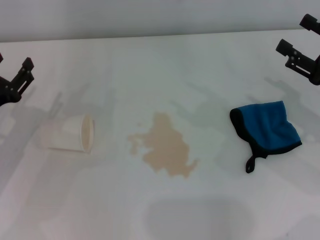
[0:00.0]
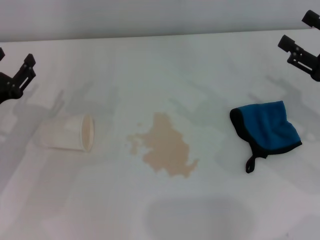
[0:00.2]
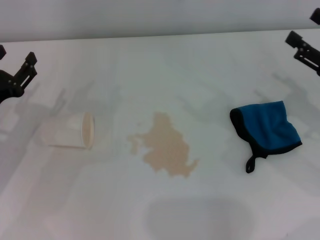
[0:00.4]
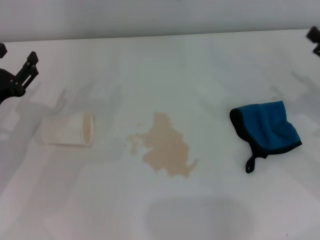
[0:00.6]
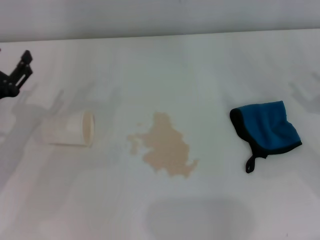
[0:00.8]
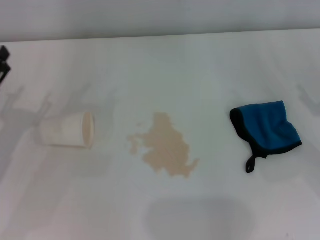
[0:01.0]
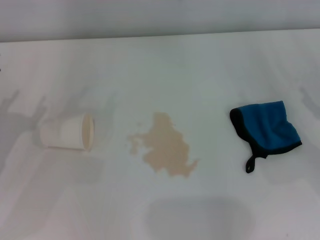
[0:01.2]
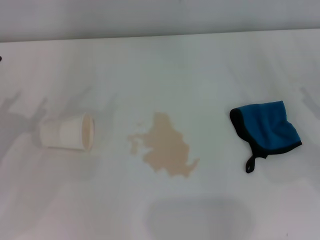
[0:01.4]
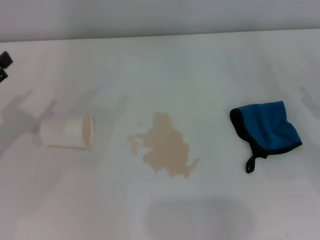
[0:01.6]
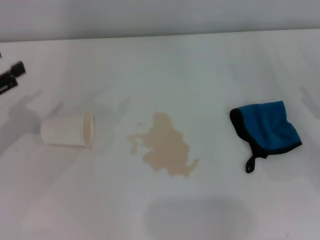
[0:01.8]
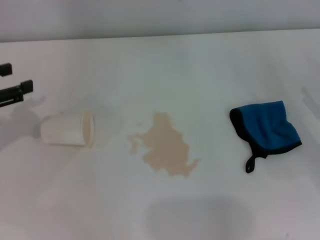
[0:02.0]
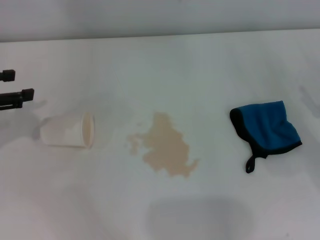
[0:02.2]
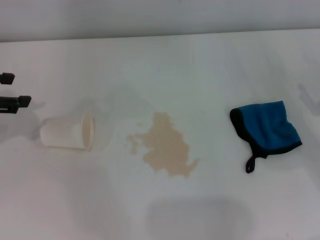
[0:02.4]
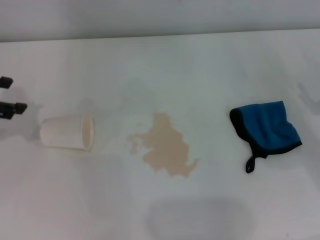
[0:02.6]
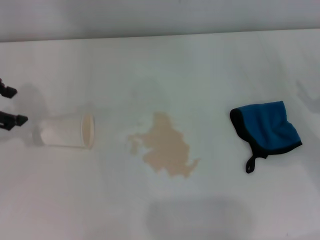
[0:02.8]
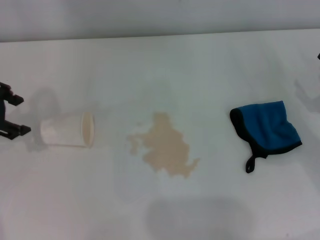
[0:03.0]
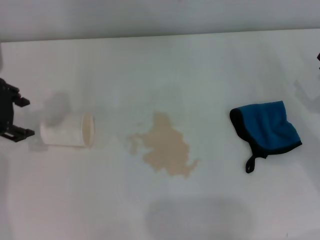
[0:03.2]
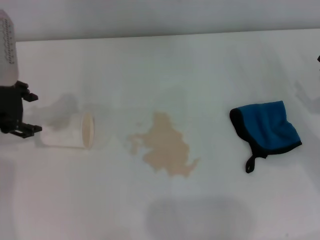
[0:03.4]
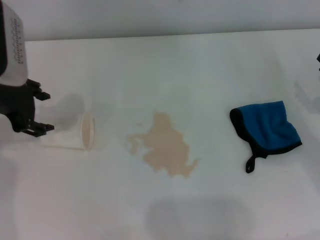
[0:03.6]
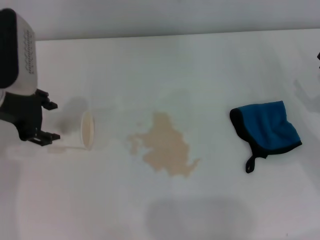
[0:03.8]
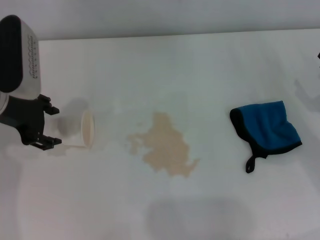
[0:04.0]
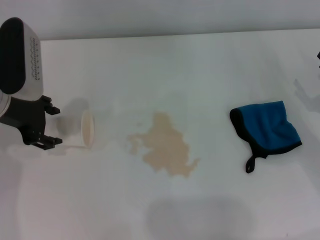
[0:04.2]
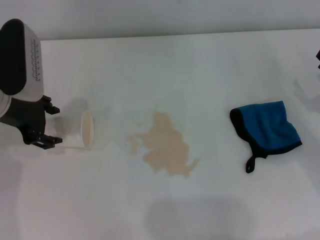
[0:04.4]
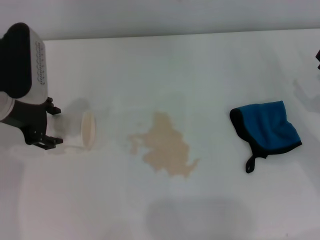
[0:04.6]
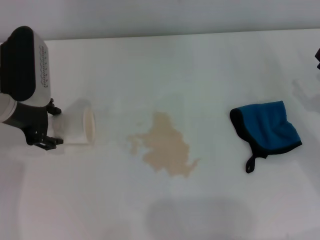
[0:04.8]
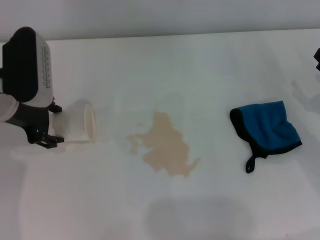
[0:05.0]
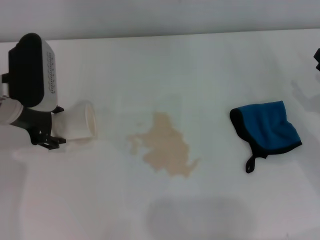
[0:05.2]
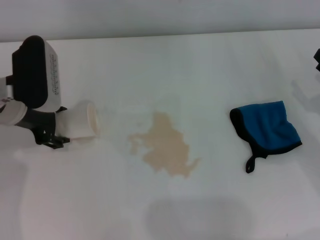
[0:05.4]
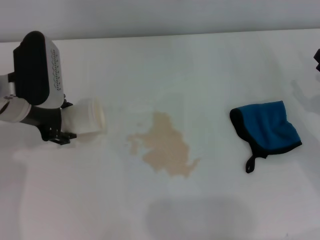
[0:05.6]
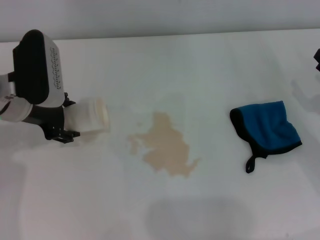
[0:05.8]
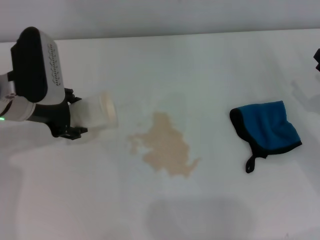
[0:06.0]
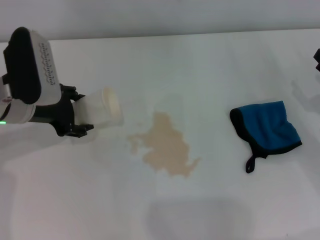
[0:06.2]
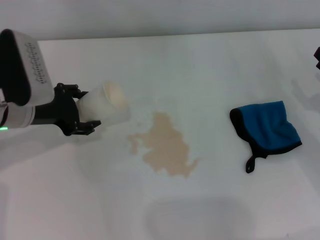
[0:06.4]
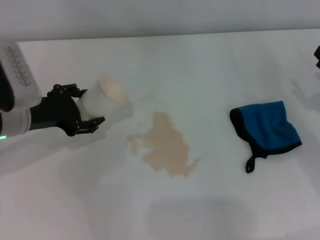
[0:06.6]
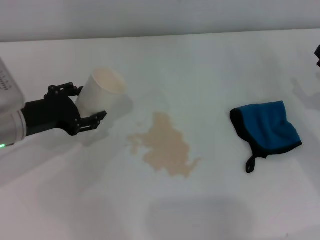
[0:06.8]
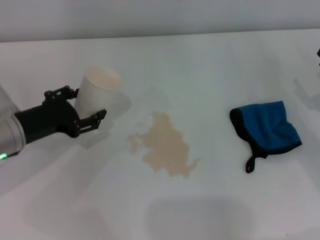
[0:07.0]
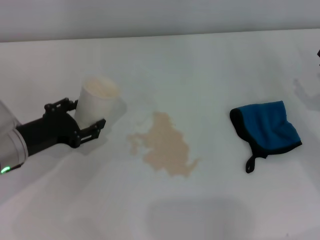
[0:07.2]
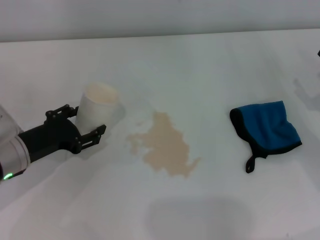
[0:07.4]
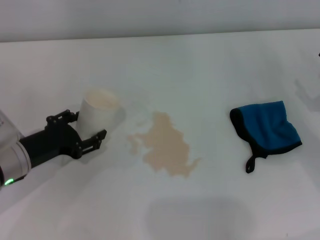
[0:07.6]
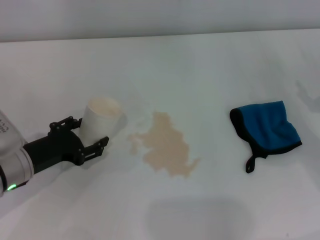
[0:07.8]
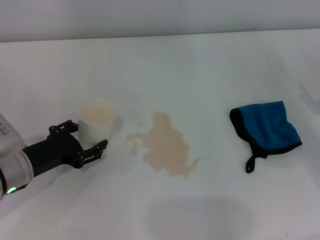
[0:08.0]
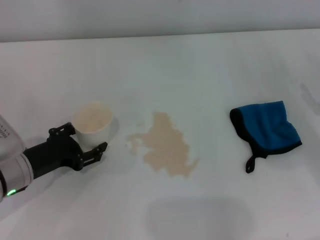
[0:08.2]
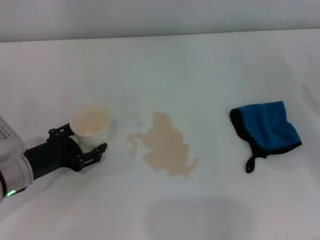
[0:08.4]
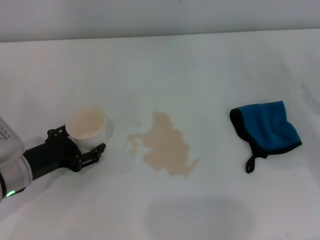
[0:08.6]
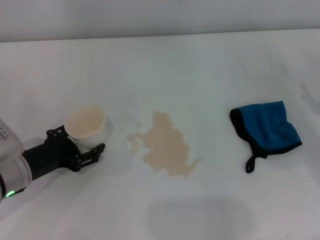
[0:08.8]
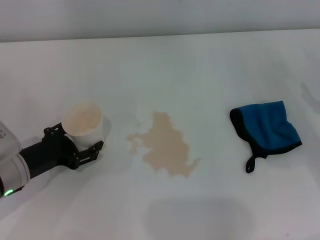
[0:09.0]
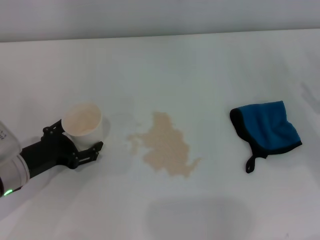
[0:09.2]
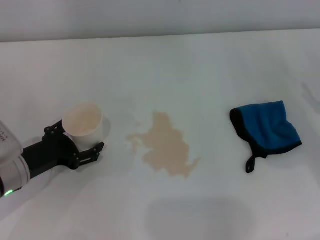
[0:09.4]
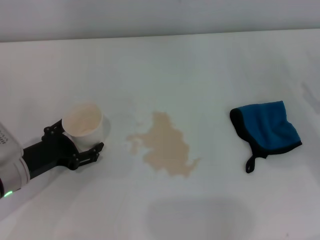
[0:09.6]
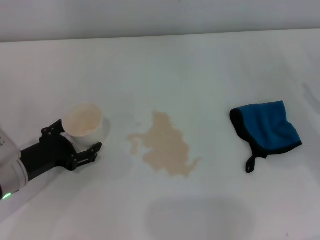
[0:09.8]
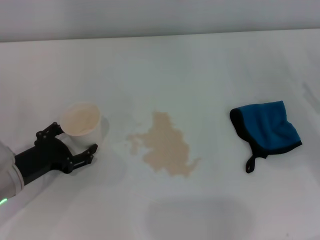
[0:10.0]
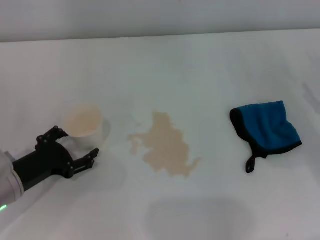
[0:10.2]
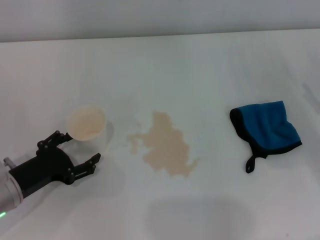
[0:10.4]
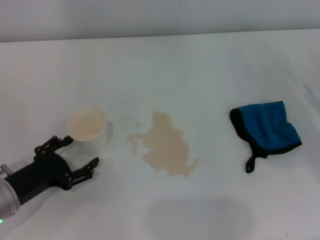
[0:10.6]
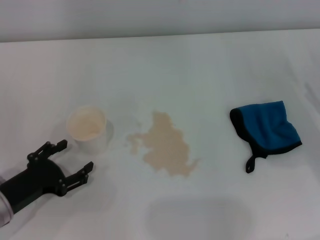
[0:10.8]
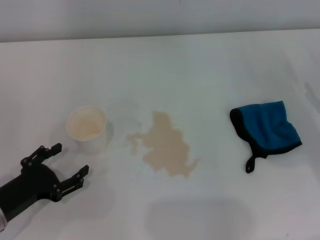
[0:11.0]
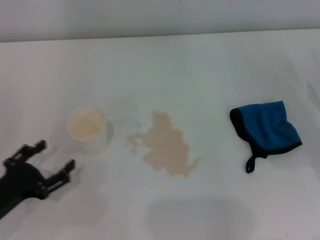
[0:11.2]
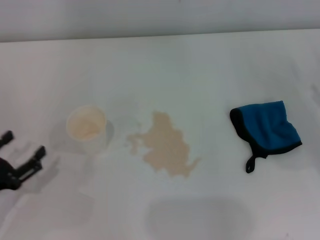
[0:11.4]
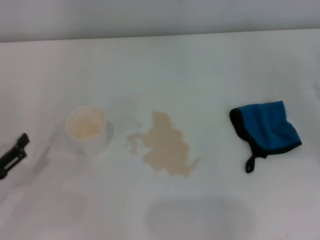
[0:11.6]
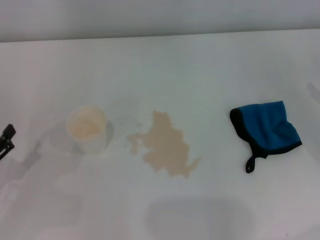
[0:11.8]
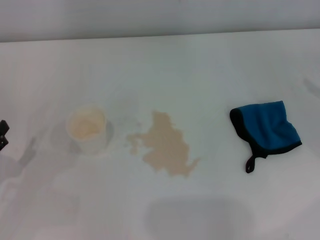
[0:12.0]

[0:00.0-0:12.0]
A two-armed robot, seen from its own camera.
Step, 0:00.0 to 0:05.0: Grasp the paper cup with the left gripper.
Step, 0:05.4 to 0:10.0: Stand the paper cup upright with the left gripper.
0:00.0 to 0:01.6: The left gripper is displaced to the left by about 5 cm, while the right gripper shifts by some 5 cm.
0:01.6 to 0:03.0: The left gripper heads upward, forward and to the right, covering about 15 cm.
0:03.0 to 0:04.4: The left gripper goes approximately 5 cm to the right.
0:04.4 to 0:06.0: The grippers move only a little.
0:06.0 to 0:07.6: The left gripper moves downward and backward, approximately 10 cm.
0:07.6 to 0:09.0: The grippers move only a little.
0:09.0 to 0:10.4: The left gripper opens its fingers.
0:10.4 to 0:12.0: The left gripper travels to the left and backward by some 10 cm.

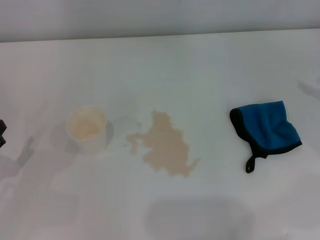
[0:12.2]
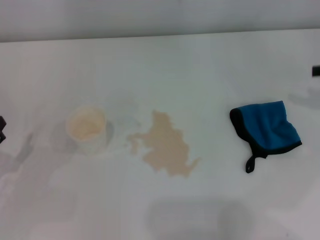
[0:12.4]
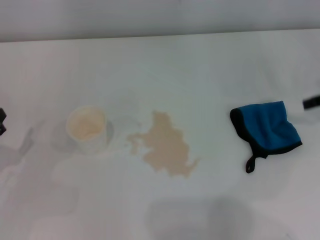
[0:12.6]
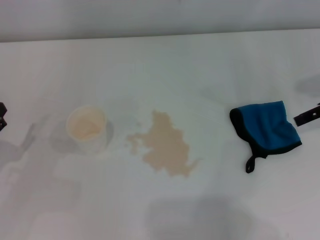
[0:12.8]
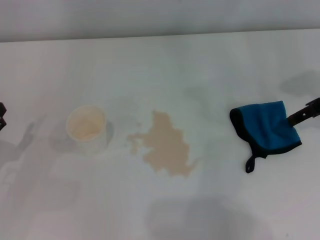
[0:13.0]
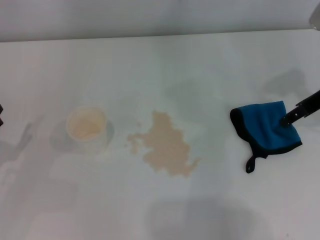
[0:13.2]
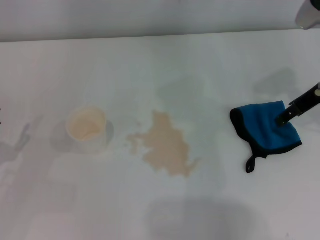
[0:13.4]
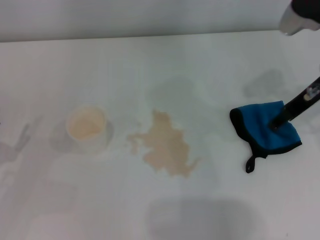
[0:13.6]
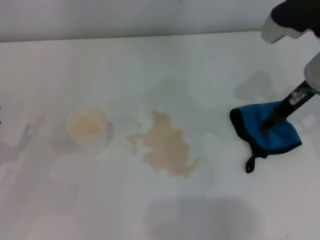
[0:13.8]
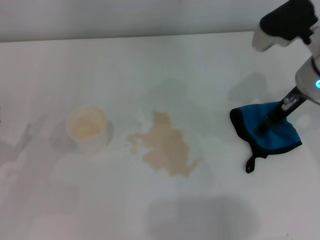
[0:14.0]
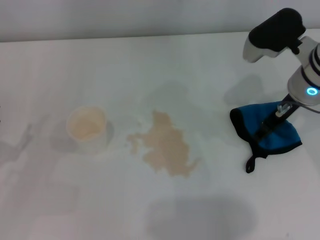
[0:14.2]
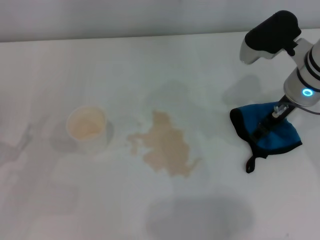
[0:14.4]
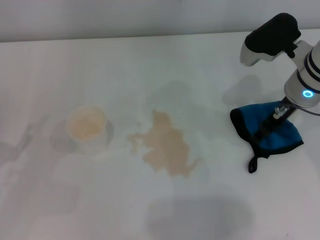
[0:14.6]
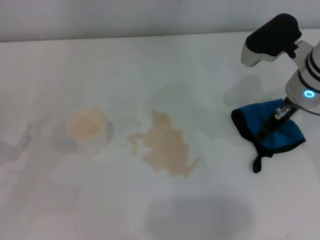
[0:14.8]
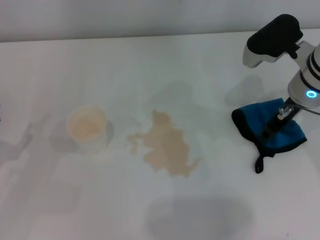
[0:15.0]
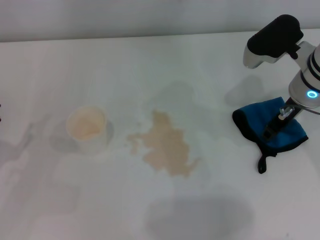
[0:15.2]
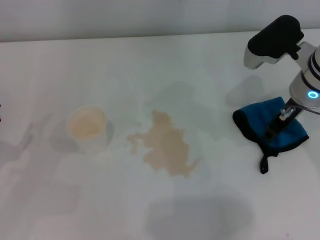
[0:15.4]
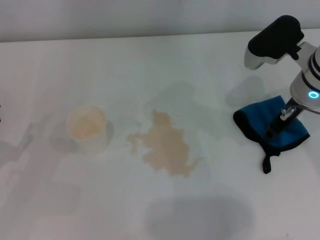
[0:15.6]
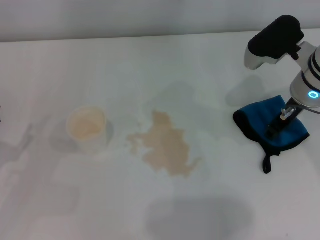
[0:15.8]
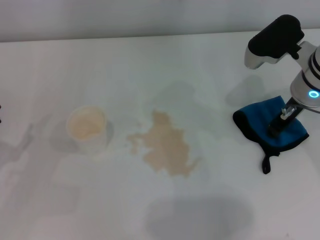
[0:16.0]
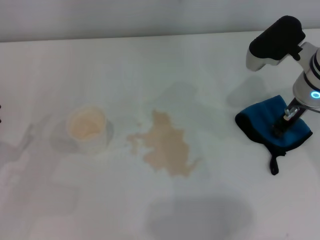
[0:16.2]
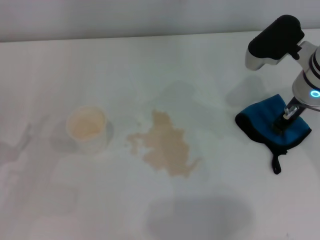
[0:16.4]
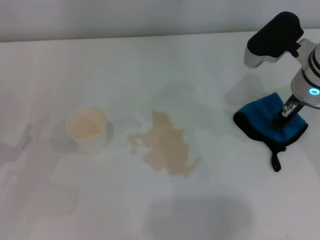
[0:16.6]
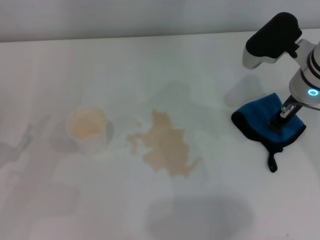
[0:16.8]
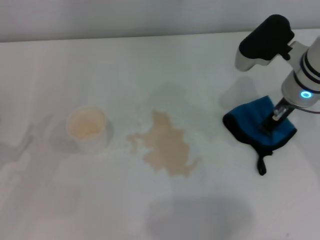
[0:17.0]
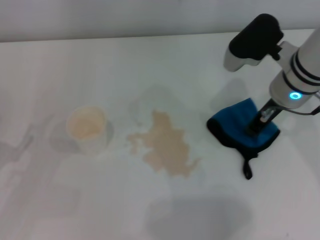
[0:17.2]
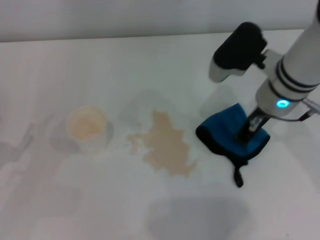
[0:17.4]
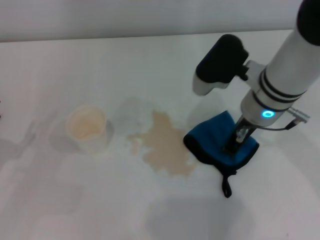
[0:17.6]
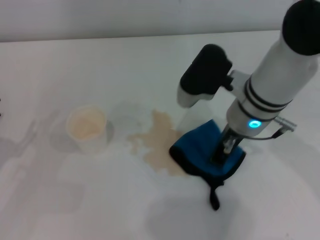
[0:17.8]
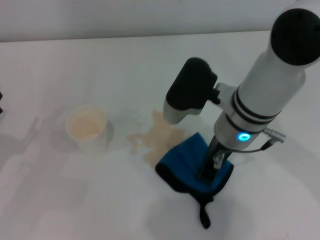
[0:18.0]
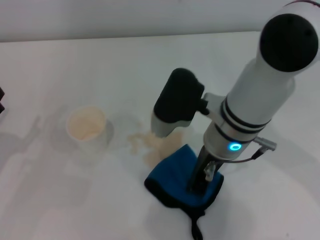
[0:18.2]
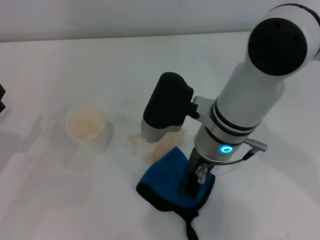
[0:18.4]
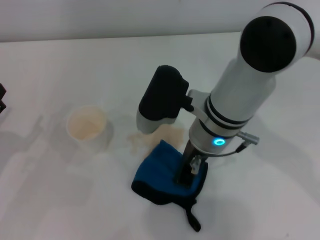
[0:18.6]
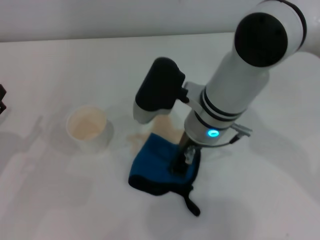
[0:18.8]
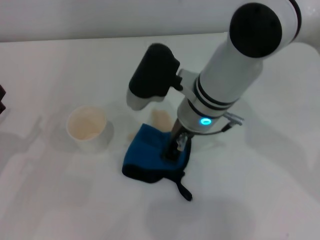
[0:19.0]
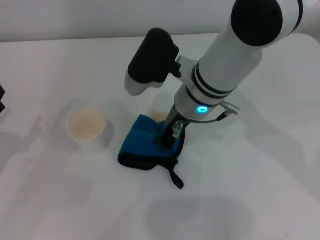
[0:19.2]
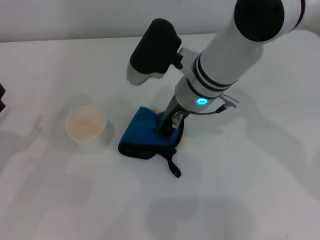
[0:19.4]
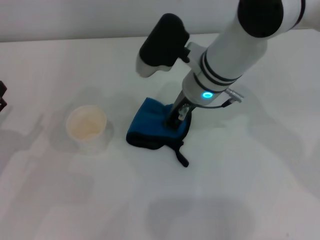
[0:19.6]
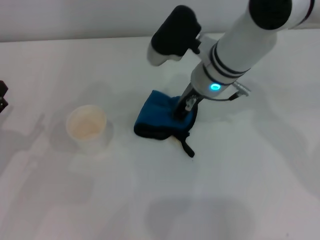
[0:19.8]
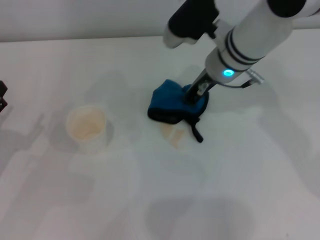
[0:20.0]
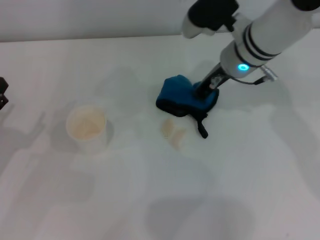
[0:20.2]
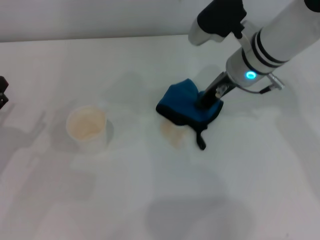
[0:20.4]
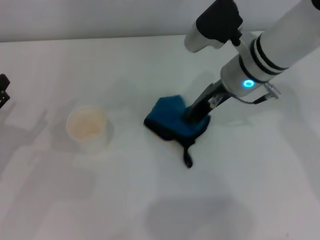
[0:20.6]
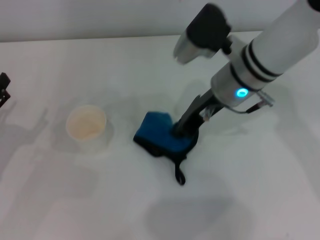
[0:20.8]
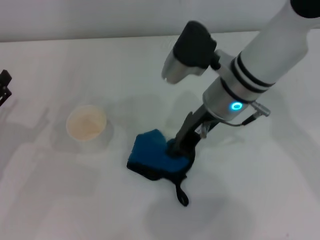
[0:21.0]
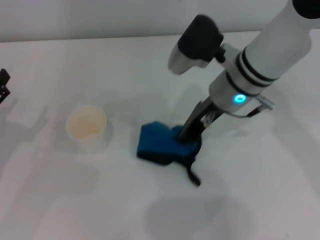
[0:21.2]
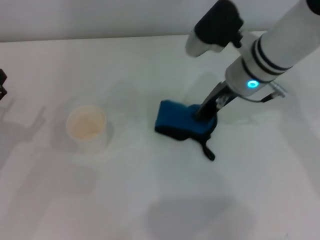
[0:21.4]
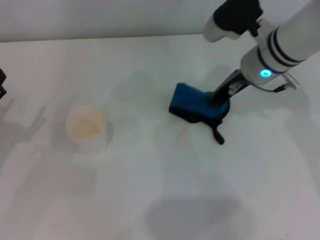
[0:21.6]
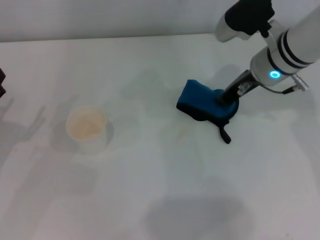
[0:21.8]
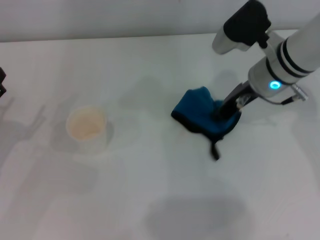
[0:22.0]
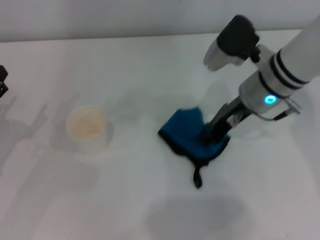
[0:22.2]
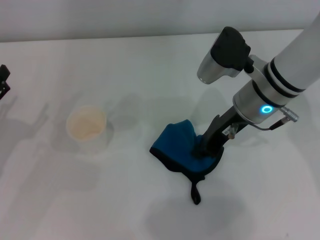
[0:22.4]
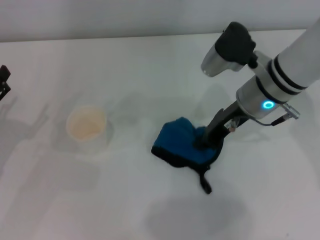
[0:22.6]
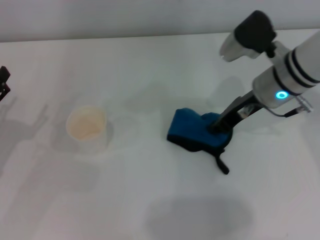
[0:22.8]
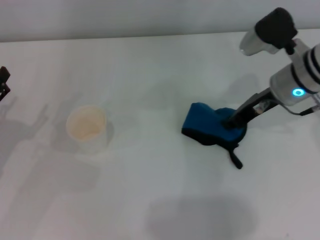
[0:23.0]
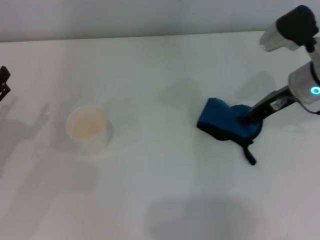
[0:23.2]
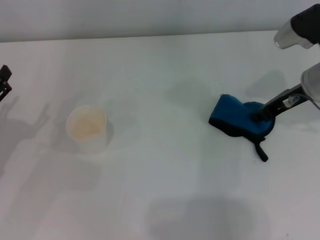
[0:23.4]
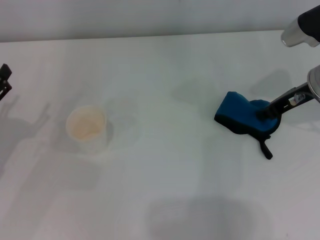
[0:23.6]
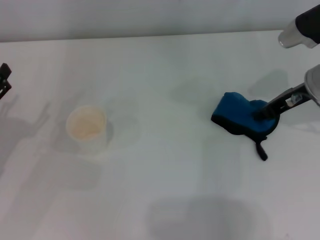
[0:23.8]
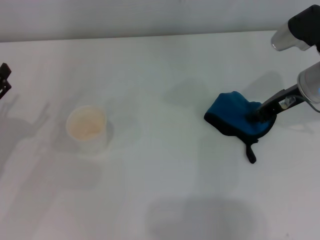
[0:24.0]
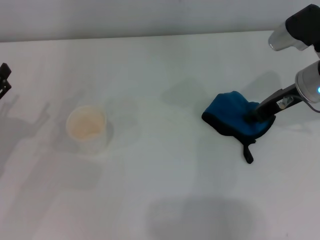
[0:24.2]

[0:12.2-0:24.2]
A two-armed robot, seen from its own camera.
Step, 0:12.2 to 0:14.4: Grasp the rag with the right gripper.
Step, 0:14.6 to 0:23.4: Wipe the stains off the table with the right gripper.
0:12.2 to 0:13.8: The right gripper heads to the left, covering approximately 20 cm.
0:13.8 to 0:15.2: The grippers move only a little.
0:15.2 to 0:16.6: The right gripper closes its fingers.
0:16.6 to 0:18.2: The right gripper moves to the left and backward, about 15 cm.
0:18.2 to 0:19.8: The right gripper shifts some 10 cm forward.
0:19.8 to 0:21.2: The grippers stay close to where they were, moving slightly.
0:22.6 to 0:24.2: The right gripper travels to the right by roughly 10 cm.
